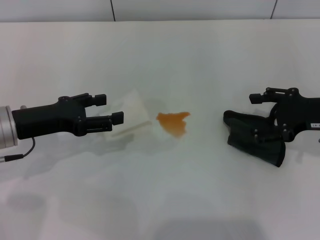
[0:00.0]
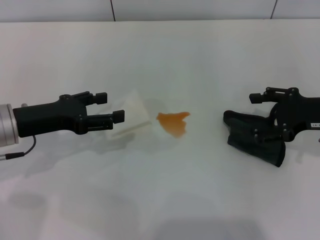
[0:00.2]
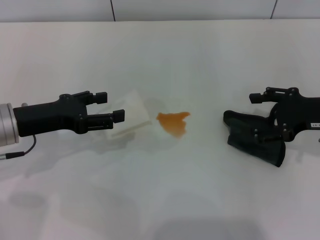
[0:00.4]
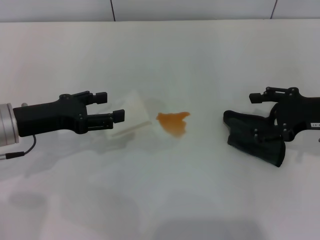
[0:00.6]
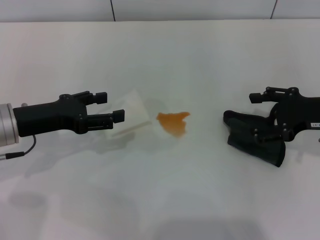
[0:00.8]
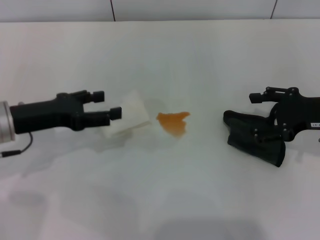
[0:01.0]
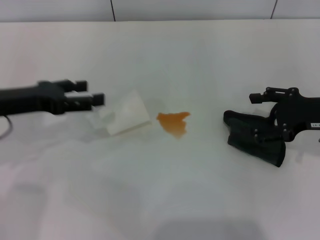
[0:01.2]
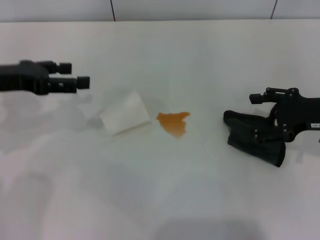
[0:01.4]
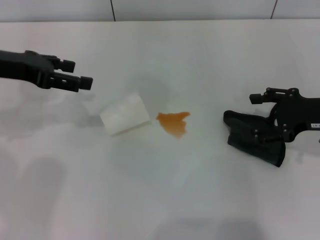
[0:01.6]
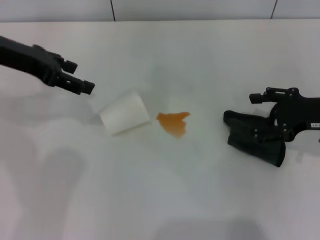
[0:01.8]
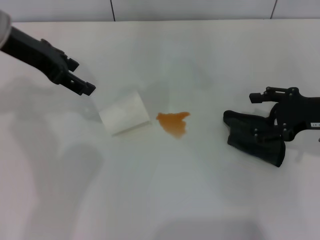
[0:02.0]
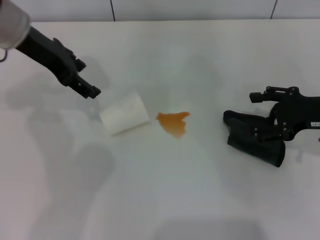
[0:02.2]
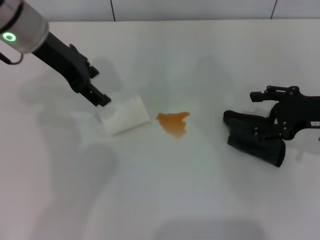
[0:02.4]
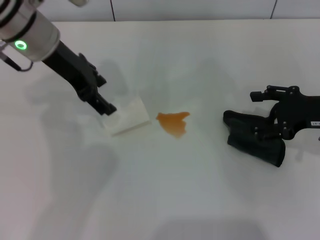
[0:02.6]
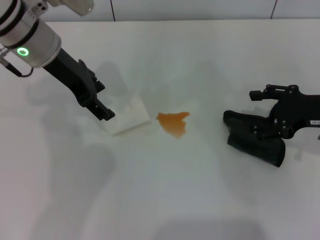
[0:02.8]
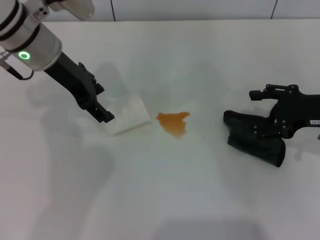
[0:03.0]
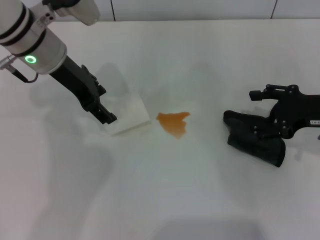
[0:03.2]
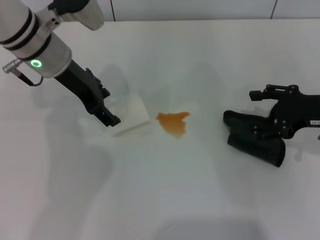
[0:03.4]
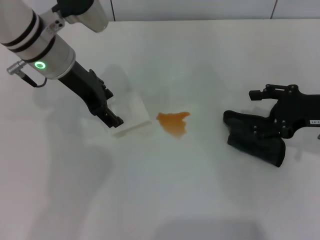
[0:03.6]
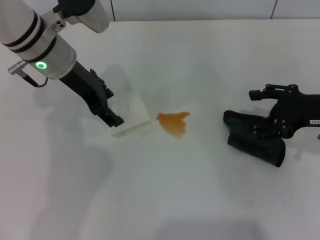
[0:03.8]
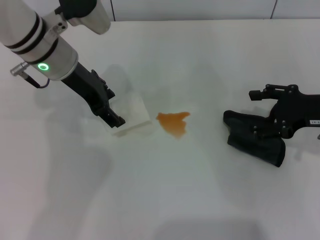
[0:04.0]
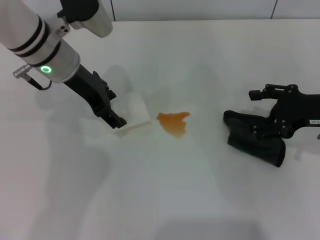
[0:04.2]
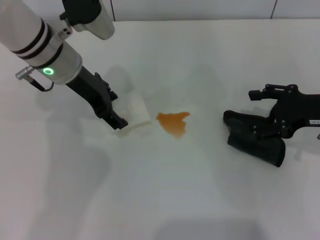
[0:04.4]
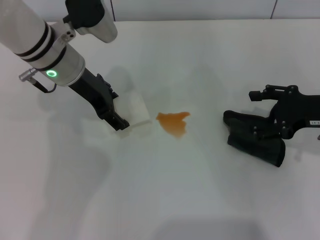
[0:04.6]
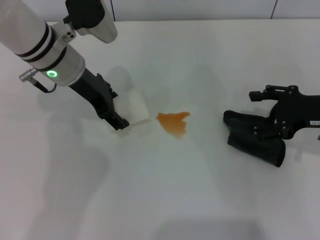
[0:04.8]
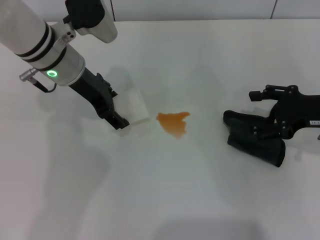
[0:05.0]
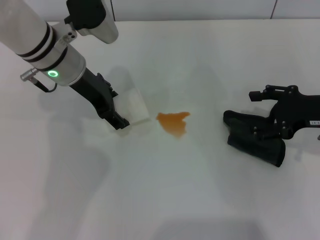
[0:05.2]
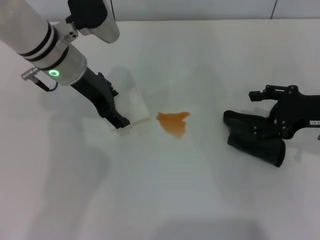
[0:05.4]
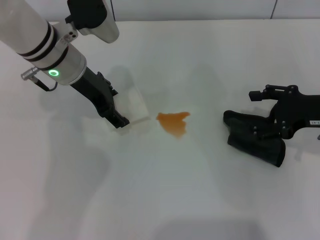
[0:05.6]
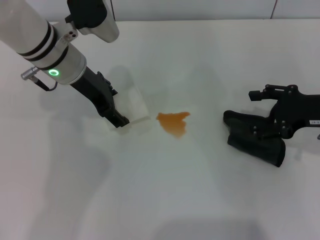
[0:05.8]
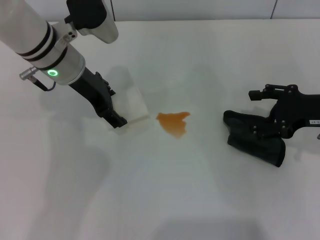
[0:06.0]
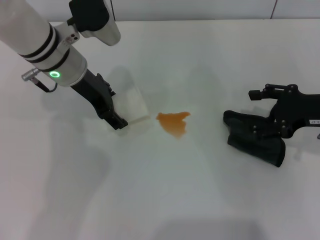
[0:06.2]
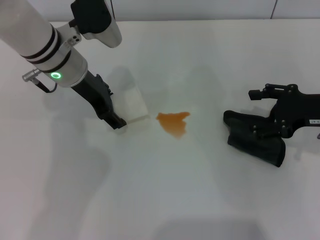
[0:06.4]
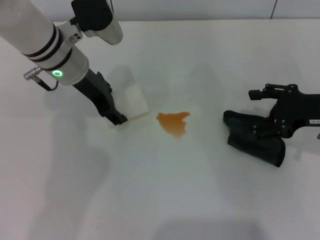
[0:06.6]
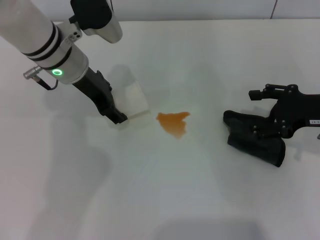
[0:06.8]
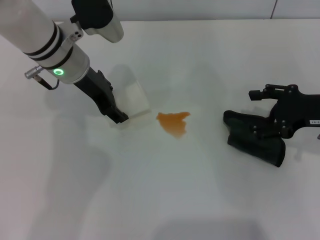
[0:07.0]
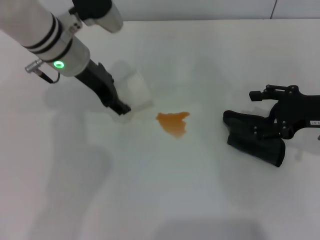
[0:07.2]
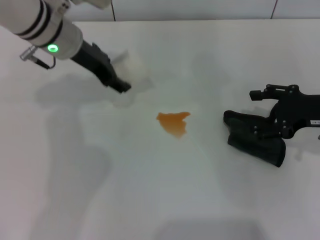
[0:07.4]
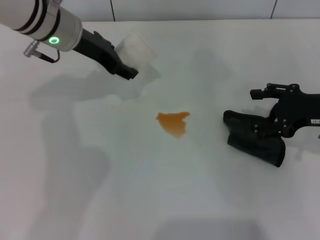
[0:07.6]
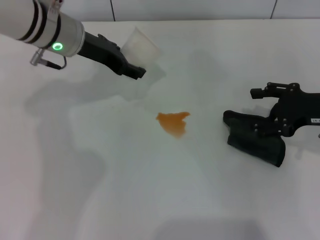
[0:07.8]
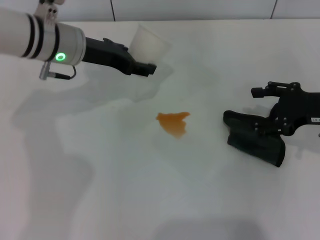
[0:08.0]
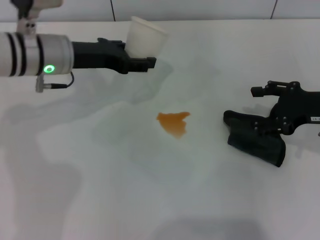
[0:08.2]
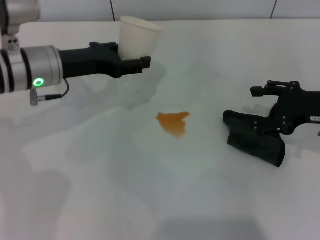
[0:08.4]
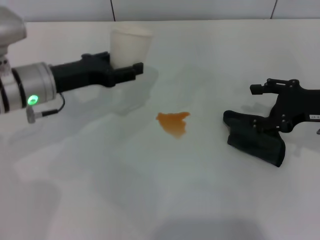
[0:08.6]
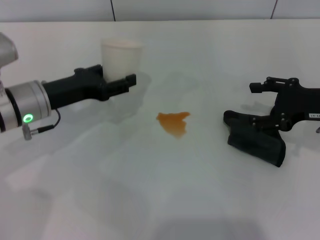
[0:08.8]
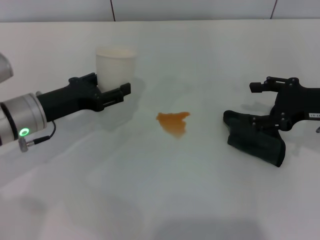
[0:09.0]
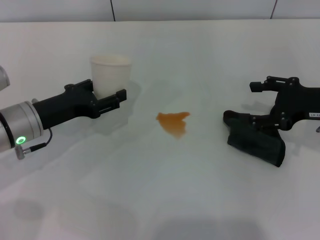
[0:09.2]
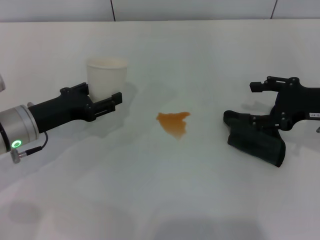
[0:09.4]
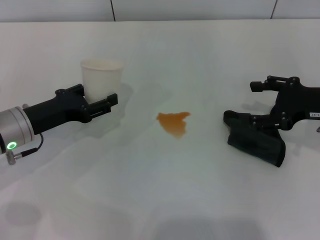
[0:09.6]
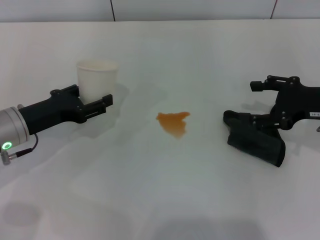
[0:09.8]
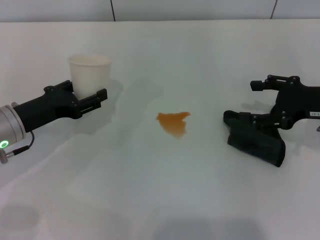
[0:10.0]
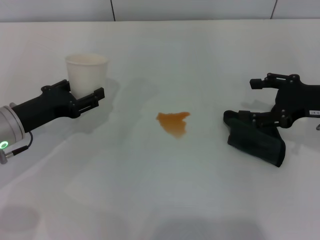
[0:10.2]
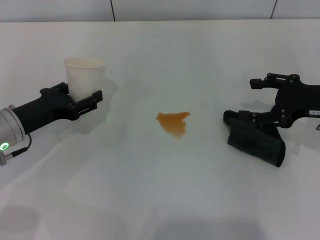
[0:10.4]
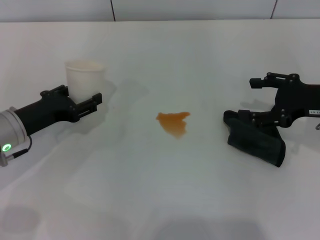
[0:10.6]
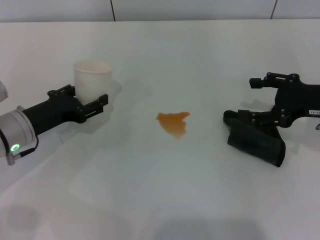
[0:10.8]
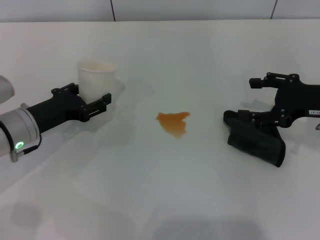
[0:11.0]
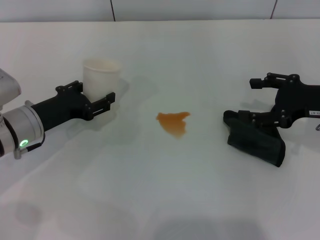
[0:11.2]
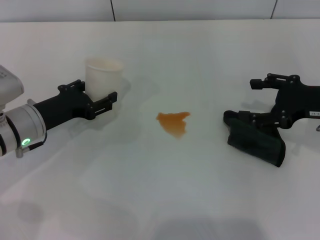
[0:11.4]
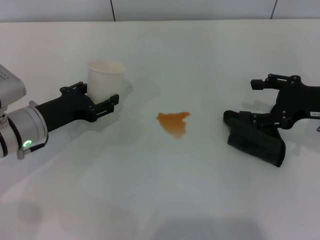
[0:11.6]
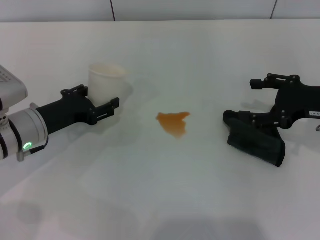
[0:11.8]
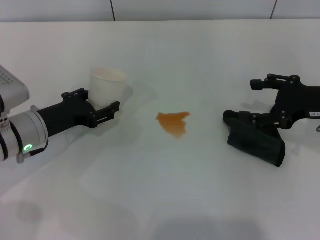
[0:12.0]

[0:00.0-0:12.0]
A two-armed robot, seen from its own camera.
Step, 0:00.0 to 0:06.8: Grasp the paper cup with the left gripper.
0:00.0 to 0:01.6: The left gripper goes approximately 10 cm upward and forward.
0:01.6 to 0:03.0: The left gripper shifts some 10 cm to the right.
0:03.0 to 0:04.4: The grippers stay close to where they were, moving slightly.
0:04.4 to 0:06.0: Neither gripper changes place.
0:06.0 to 0:07.6: The left gripper closes up.
0:07.6 to 0:09.0: The left gripper travels backward, downward and to the left by approximately 15 cm.
0:09.0 to 0:12.0: The grippers move only a little.

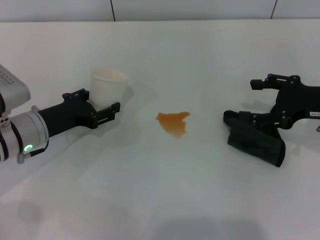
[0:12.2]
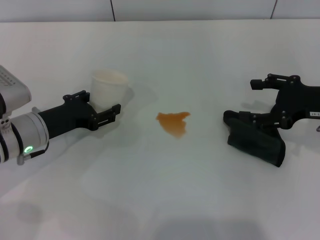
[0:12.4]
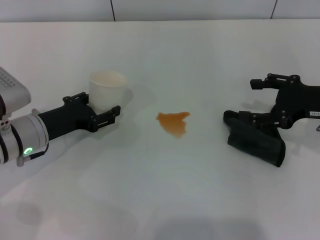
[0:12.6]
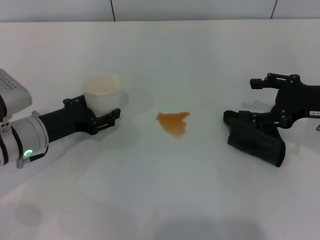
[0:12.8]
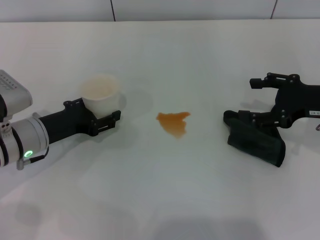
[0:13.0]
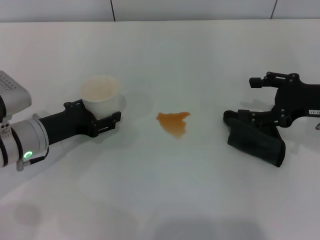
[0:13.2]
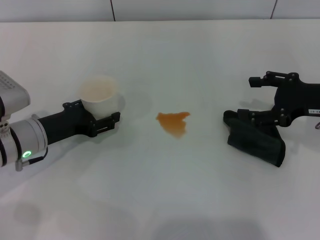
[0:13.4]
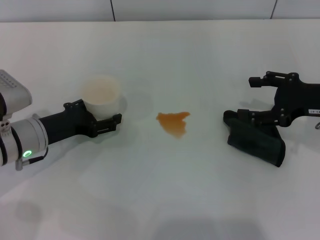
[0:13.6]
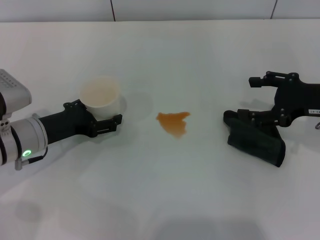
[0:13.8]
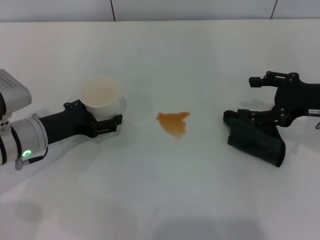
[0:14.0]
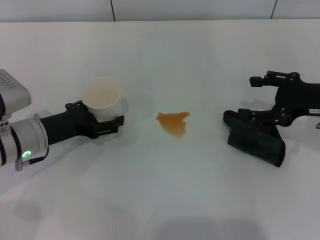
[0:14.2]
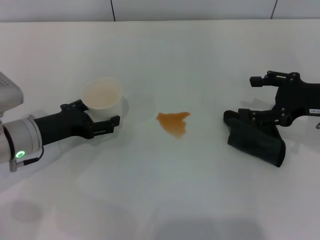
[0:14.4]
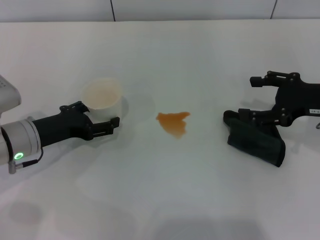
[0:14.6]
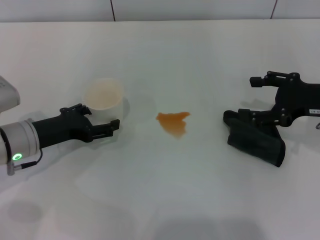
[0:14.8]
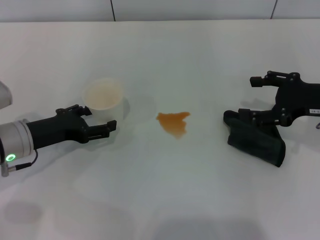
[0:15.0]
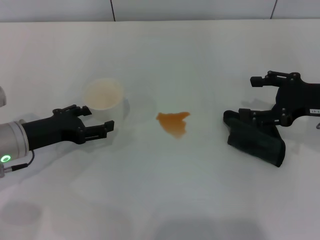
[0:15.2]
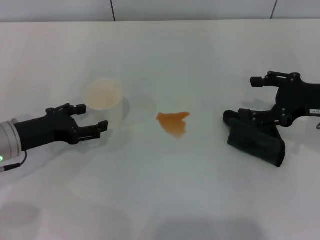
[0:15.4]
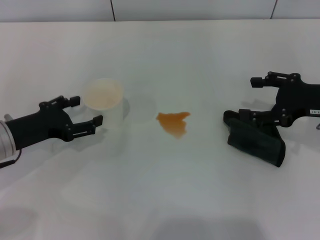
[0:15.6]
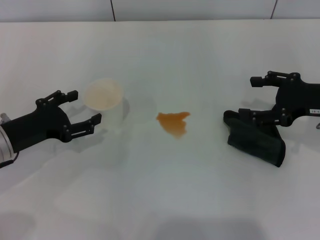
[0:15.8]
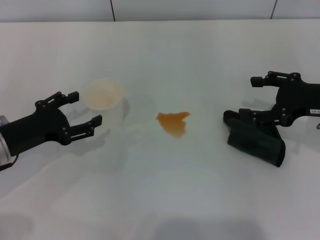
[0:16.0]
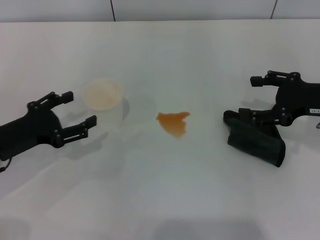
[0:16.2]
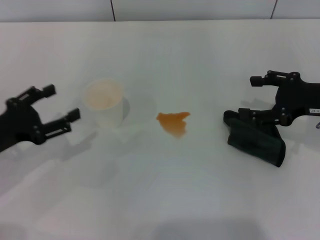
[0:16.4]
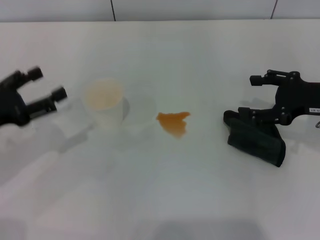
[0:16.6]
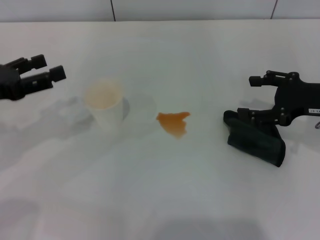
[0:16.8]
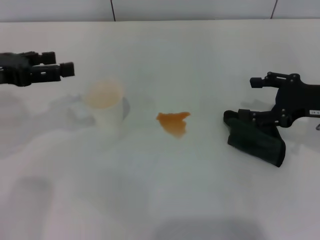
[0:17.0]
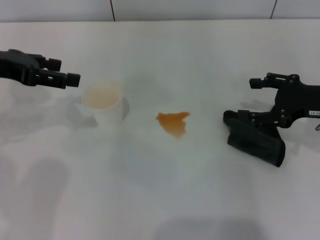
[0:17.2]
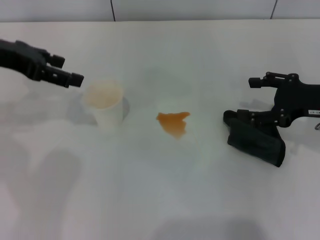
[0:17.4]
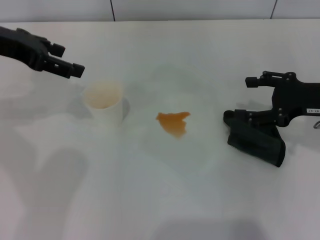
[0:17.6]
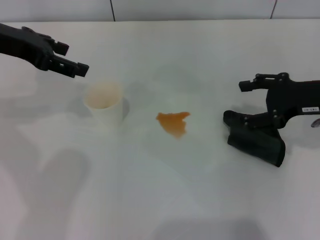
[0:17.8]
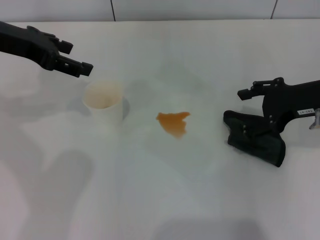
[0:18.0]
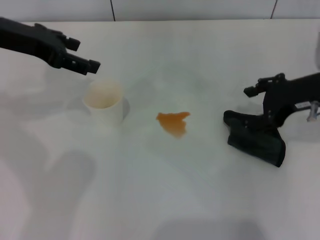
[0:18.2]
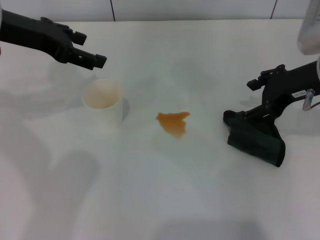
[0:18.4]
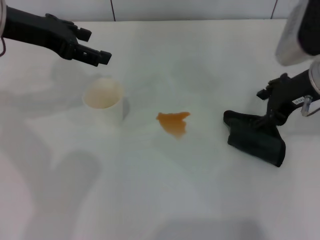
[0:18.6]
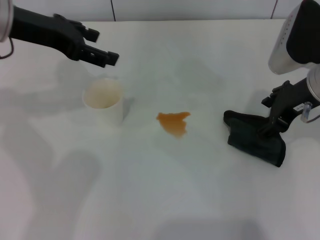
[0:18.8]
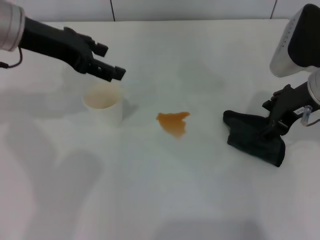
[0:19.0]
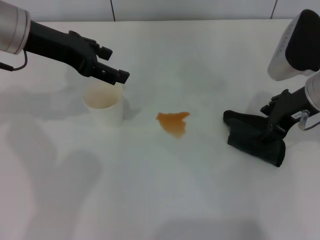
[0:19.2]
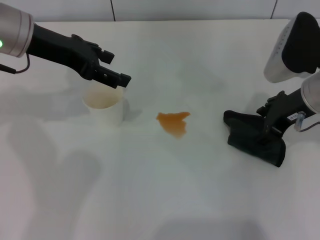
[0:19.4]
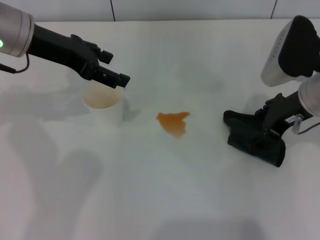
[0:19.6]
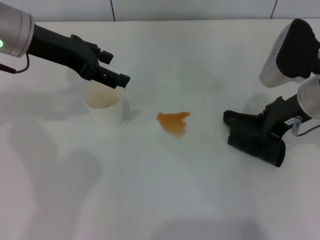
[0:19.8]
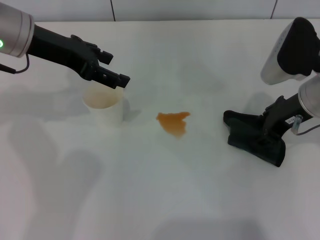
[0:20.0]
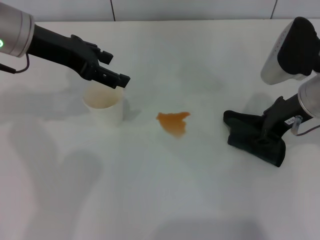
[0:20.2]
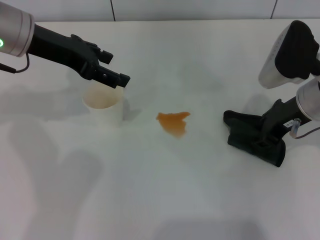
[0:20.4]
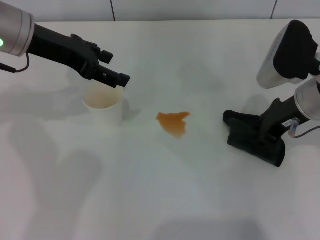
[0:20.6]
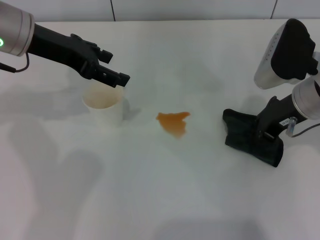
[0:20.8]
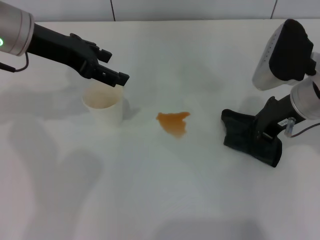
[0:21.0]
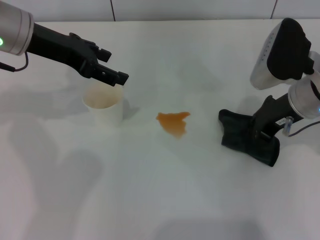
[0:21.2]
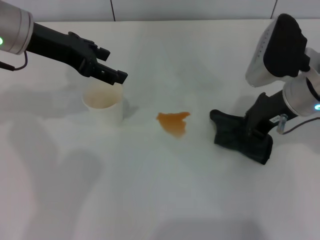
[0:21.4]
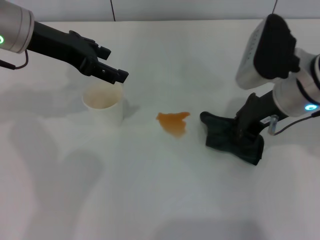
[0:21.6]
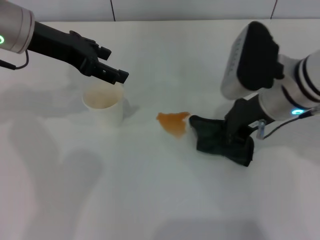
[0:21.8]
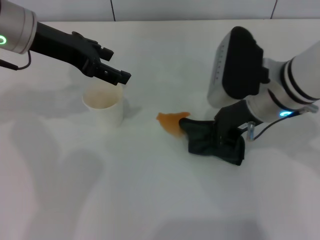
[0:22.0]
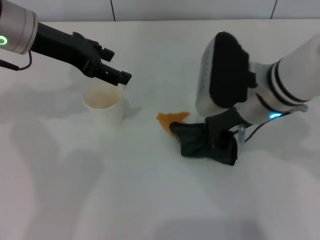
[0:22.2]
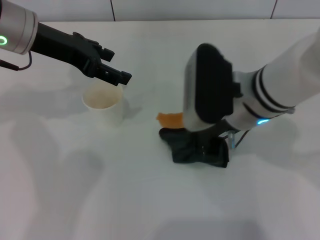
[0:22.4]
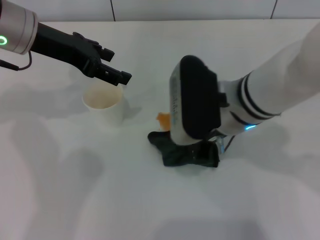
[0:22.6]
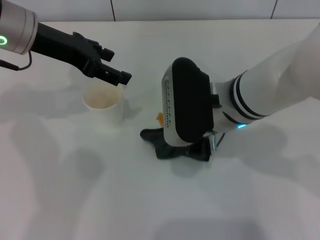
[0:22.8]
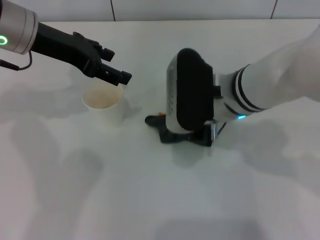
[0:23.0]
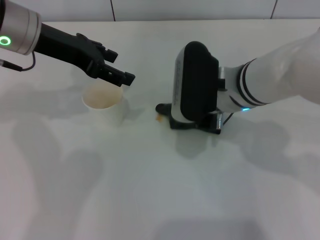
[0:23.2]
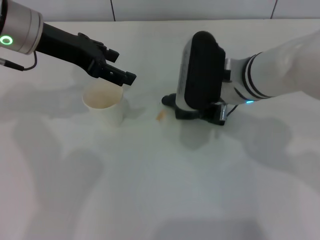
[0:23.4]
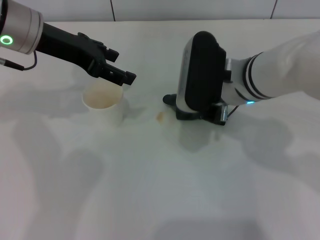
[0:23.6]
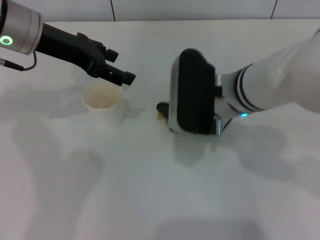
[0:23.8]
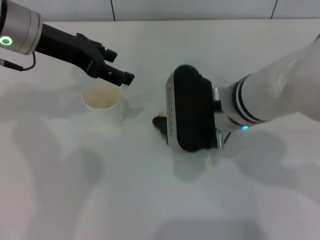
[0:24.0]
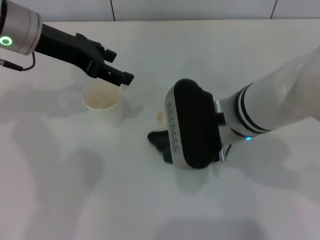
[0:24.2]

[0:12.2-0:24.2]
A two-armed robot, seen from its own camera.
Step, 0:12.2 to 0:15.8: Stand the paper cup upright with the left gripper.
Step, 0:16.0 to 0:20.6: Grasp the rag with the right gripper.
0:12.2 to 0:13.8: The left gripper opens.
0:13.8 to 0:15.2: The left gripper opens its fingers.
0:15.2 to 0:16.6: The left gripper goes approximately 5 cm to the left.
0:16.6 to 0:18.2: The right gripper ends up about 5 cm from where it was. The left gripper shifts about 20 cm upward, forward and to the right.
0:19.8 to 0:21.2: The right gripper closes.
0:21.2 to 0:22.6: The right gripper is displaced to the left by approximately 10 cm.
0:22.6 to 0:24.2: The grippers move only a little.
